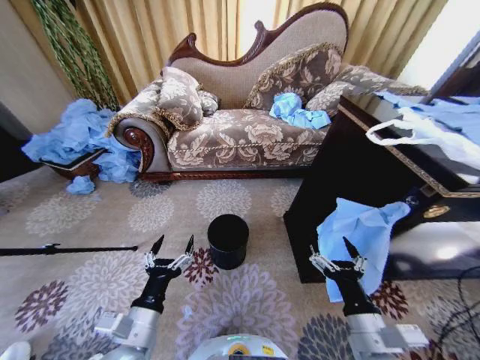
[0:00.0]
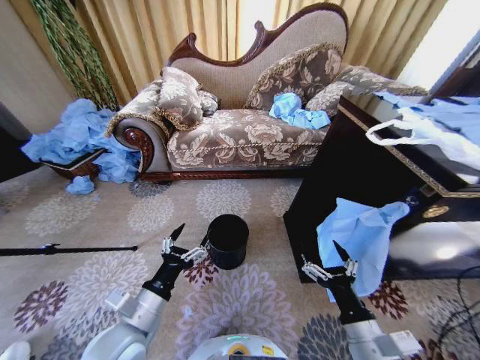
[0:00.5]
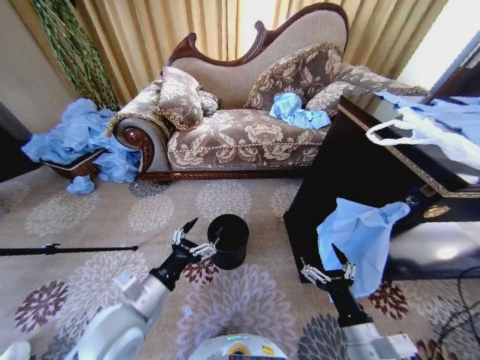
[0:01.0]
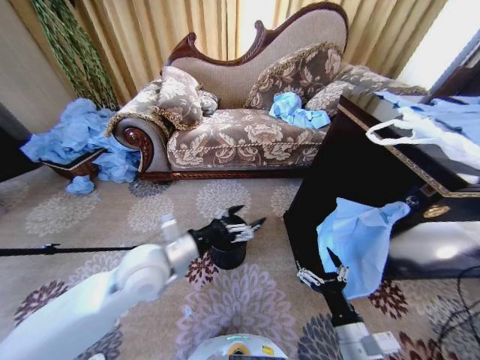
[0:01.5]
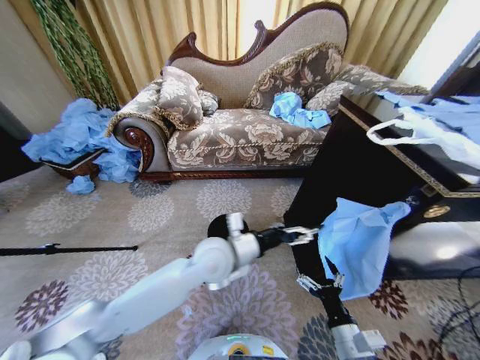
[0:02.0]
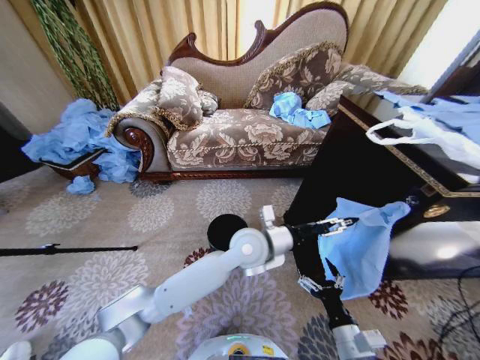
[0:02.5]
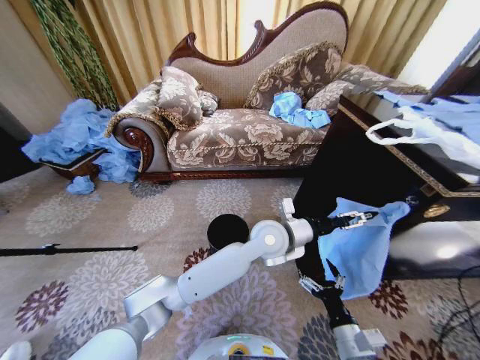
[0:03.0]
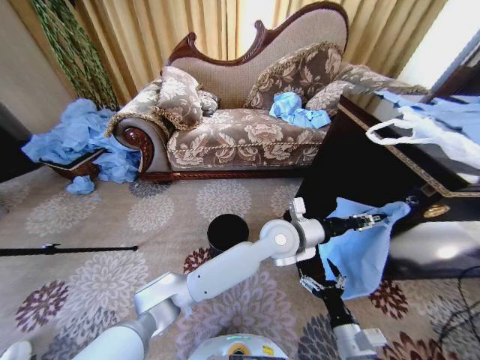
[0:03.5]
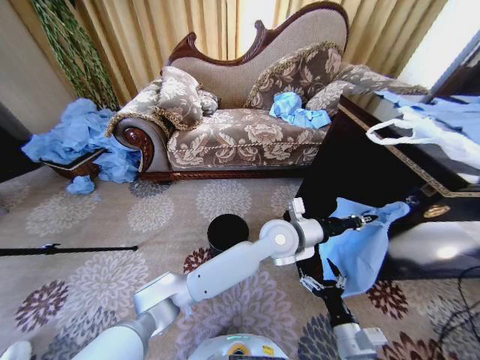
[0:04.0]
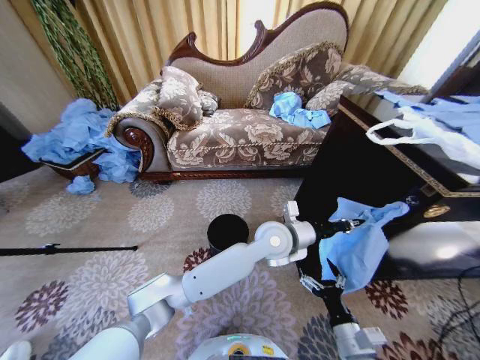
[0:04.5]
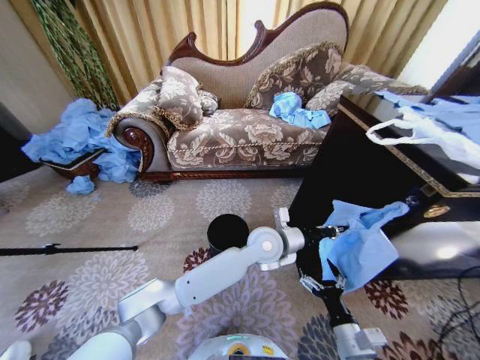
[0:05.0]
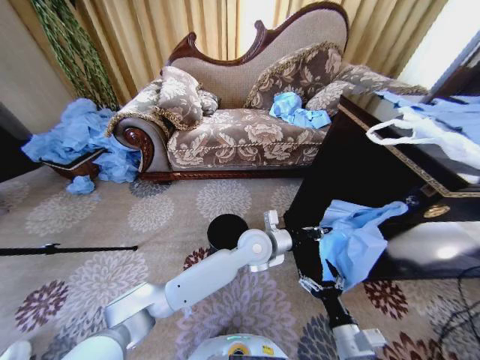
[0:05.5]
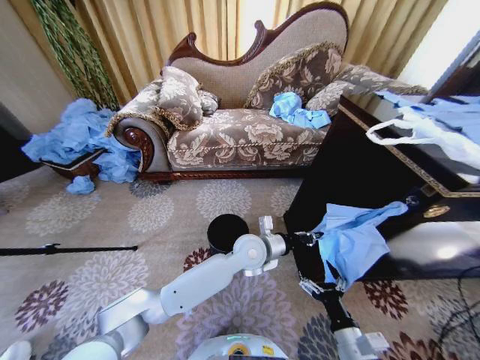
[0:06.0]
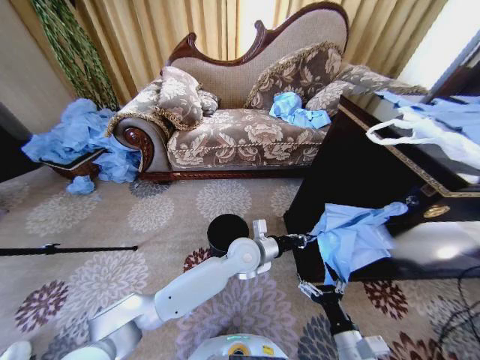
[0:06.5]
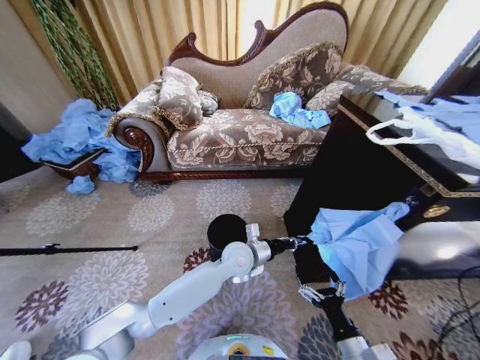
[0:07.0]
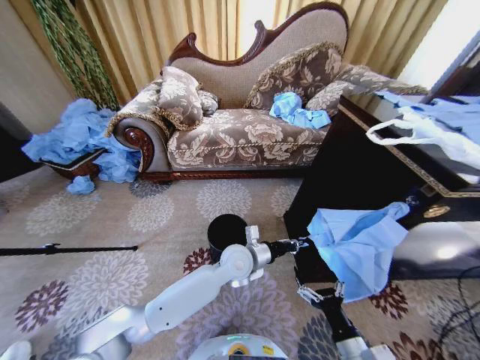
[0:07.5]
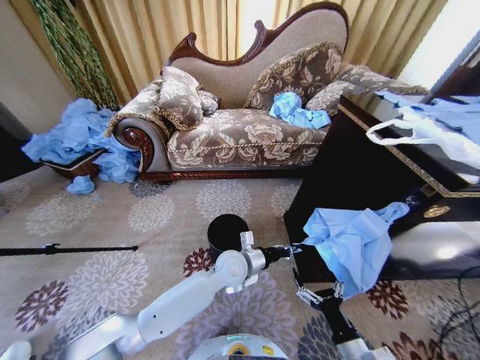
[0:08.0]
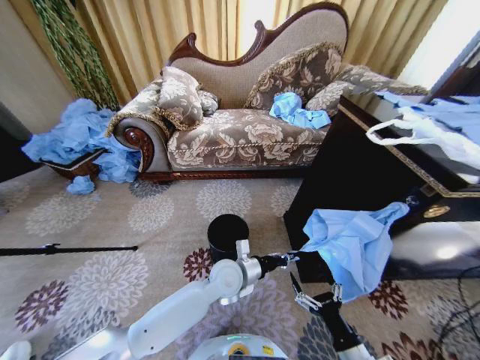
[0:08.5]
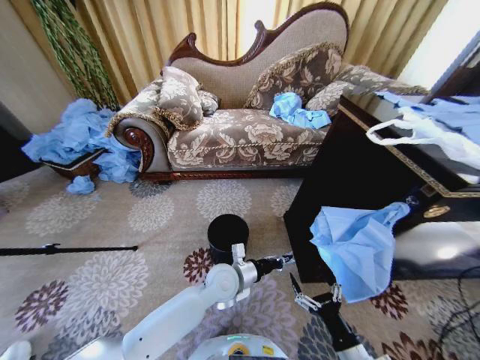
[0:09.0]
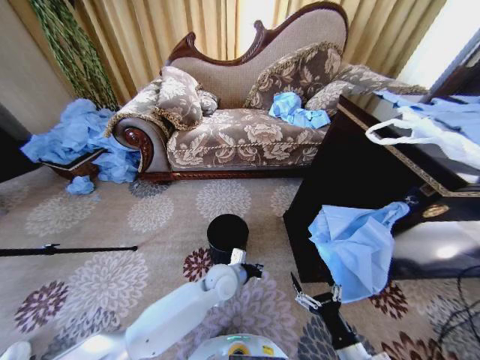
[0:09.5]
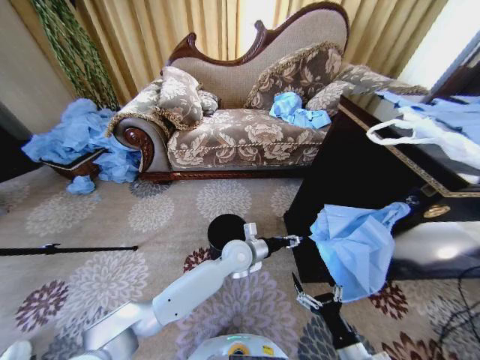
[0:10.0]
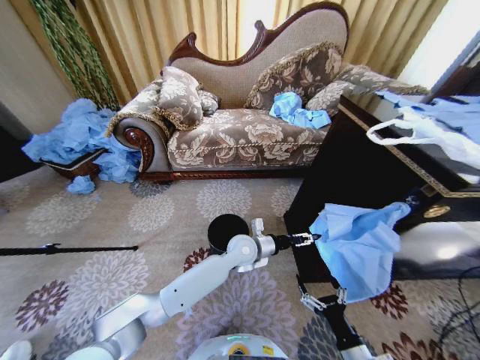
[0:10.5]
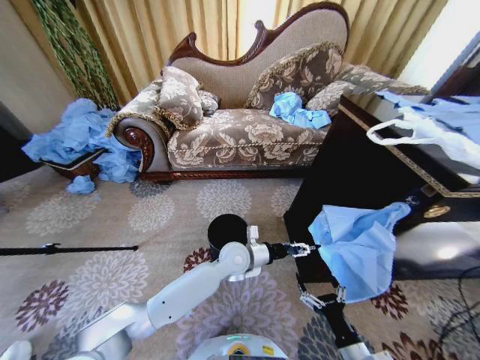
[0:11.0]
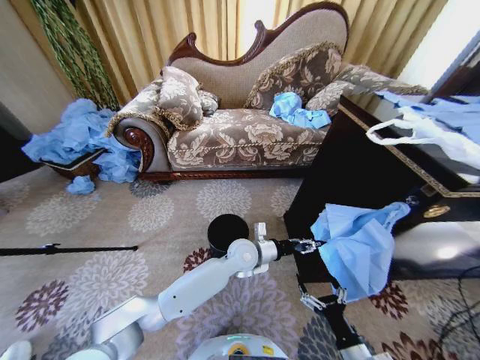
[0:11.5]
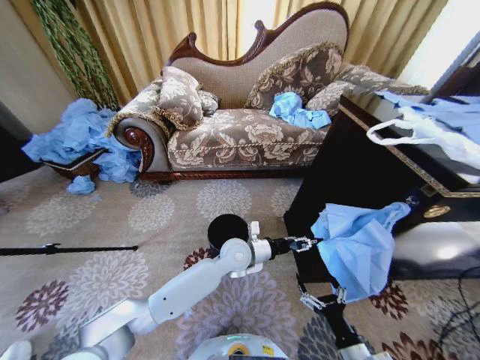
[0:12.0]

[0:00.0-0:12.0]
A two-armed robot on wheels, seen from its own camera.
Task of the whole recording: Place a garbage bag over the trash bin.
0:02.0 to 0:04.0: The left gripper heads to the right, covering some 15 cm, and closes its fingers.
0:04.0 to 0:06.0: The left gripper travels downward and to the left by approximately 10 cm.
0:06.0 to 0:08.0: The left gripper travels to the left by roughly 5 cm.
0:08.0 to 0:10.0: The left gripper opens its fingers.
0:10.0 to 0:12.0: The grippers make only small movements.

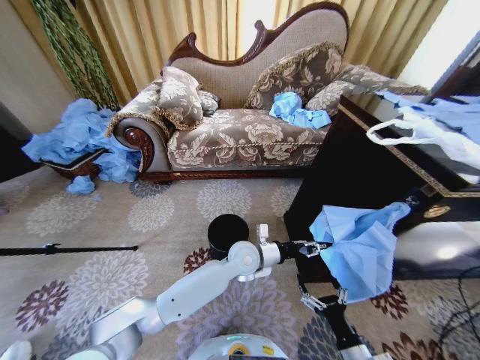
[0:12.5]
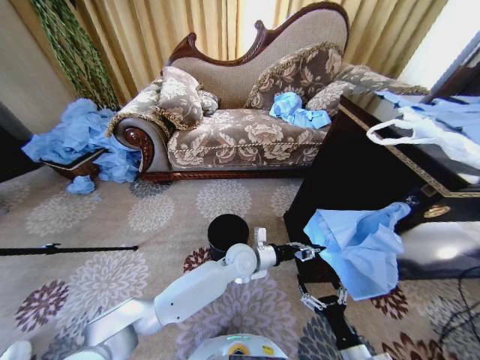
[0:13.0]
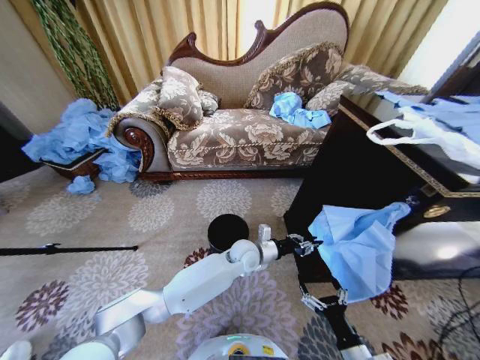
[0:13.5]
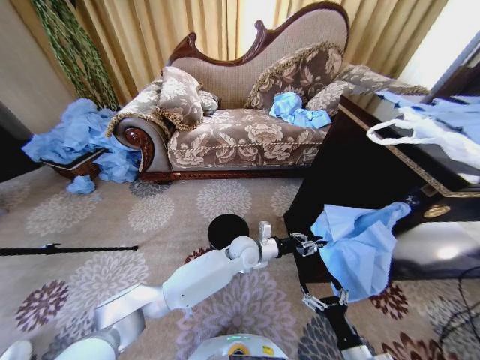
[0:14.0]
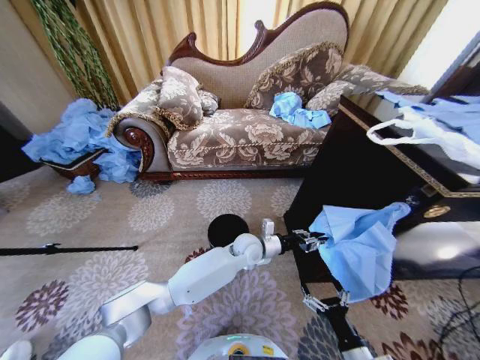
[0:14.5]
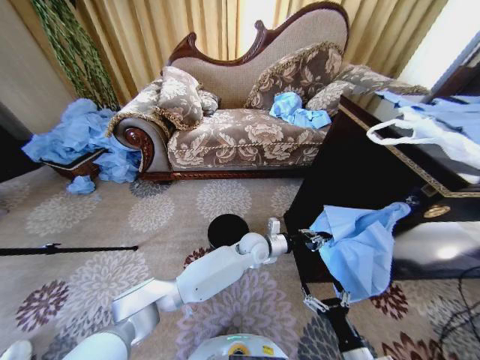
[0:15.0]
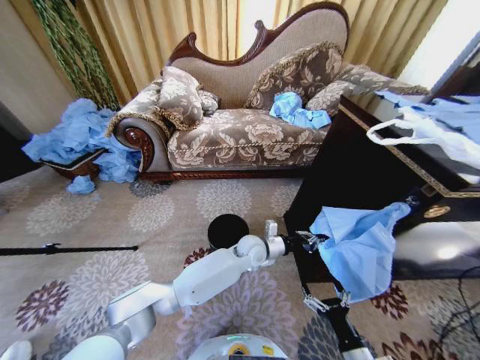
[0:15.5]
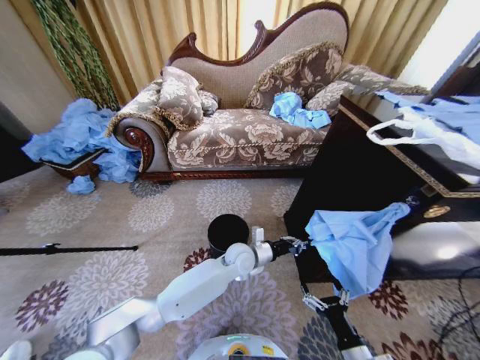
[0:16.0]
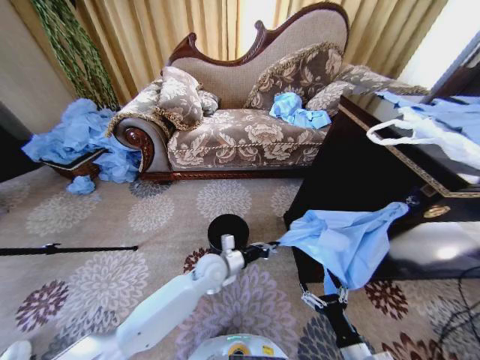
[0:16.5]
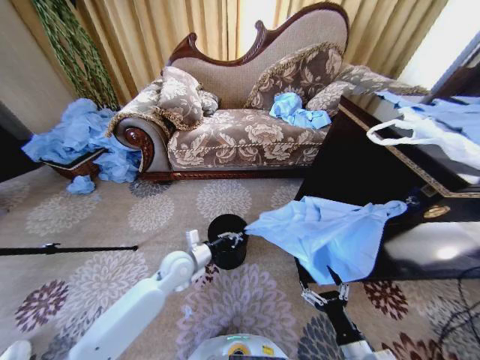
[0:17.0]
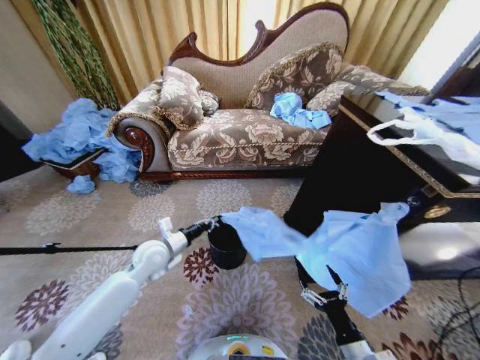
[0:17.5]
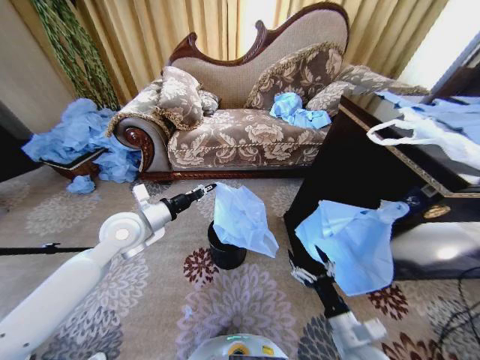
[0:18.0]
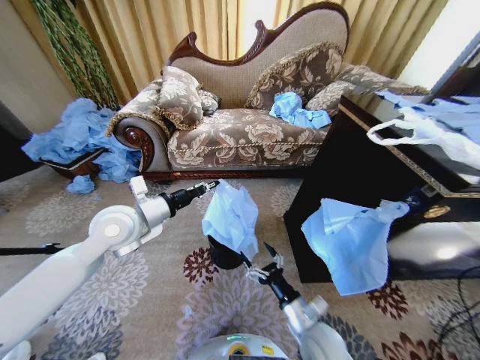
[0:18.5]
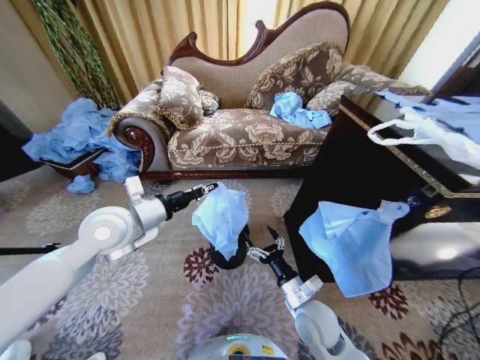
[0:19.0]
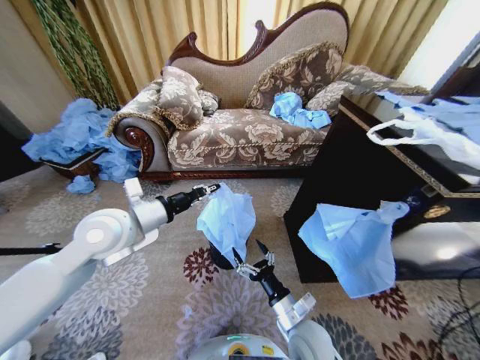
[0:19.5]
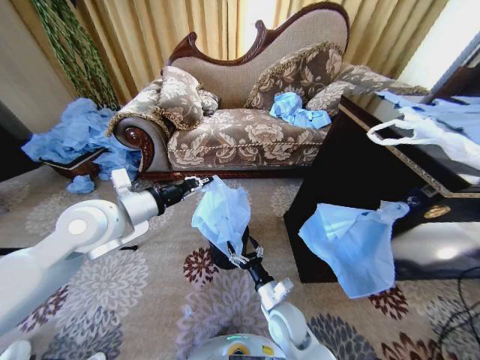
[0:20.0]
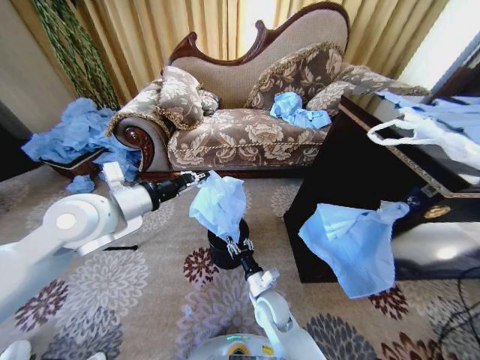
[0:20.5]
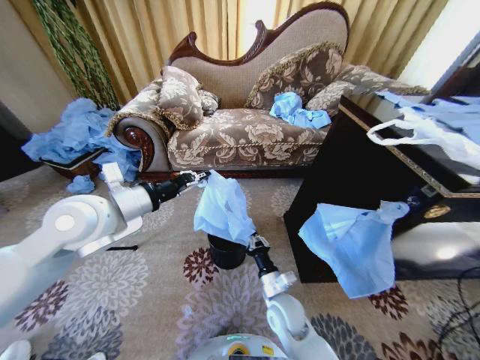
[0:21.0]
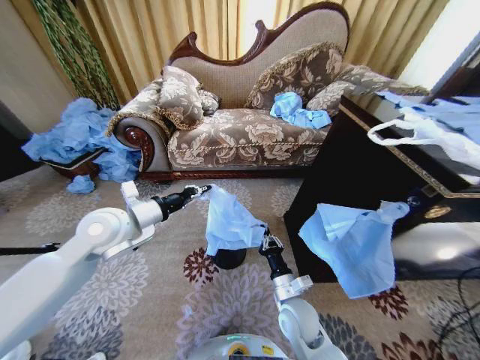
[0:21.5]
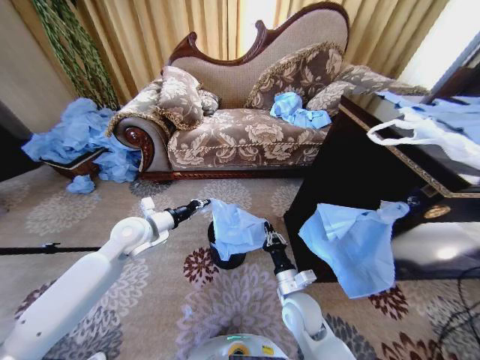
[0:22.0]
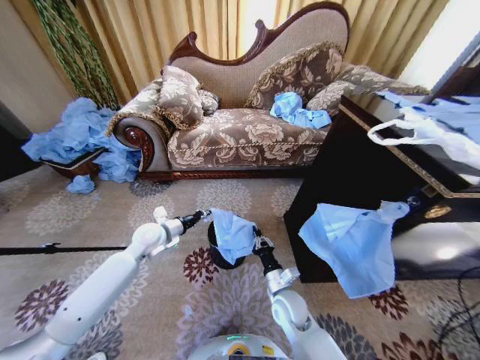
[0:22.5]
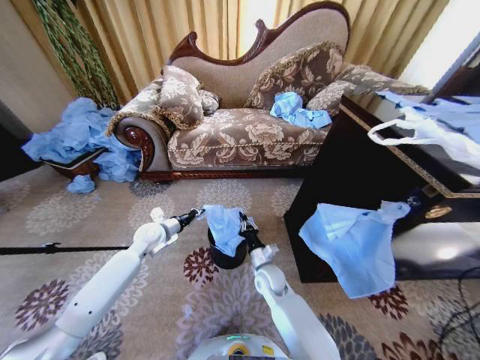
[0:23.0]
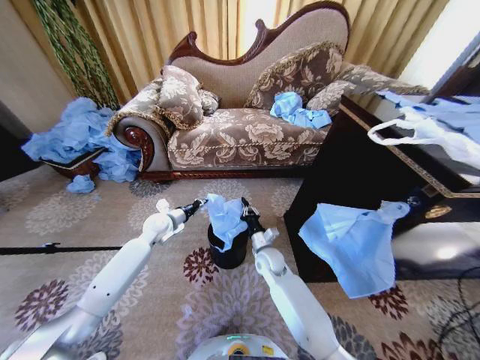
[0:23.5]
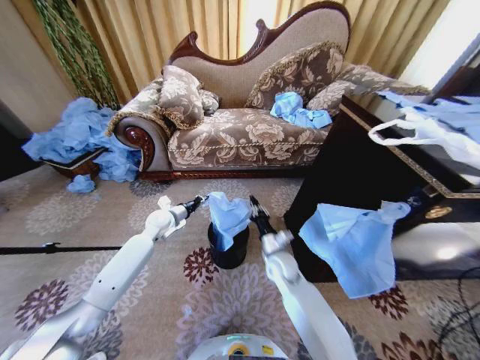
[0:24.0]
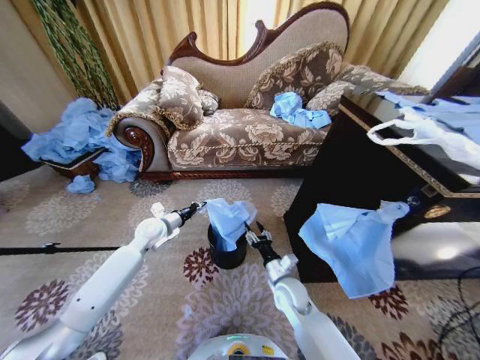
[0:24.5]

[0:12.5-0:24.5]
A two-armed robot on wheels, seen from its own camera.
Task of the whole recording: Place a garbage bag over the trash bin.
0:14.5 to 0:16.5: The left gripper moves to the left and backward, approximately 15 cm.
0:16.5 to 0:18.5: The right gripper travels to the left and forward by about 15 cm; the left gripper heads upward and to the left, covering some 30 cm.
0:18.5 to 0:20.5: The left gripper is displaced upward by roughly 5 cm. Meanwhile the right gripper heads to the left, forward and downward, covering roughly 15 cm, and closes.
0:20.5 to 0:22.5: The left gripper travels downward and forward by about 25 cm, while the right gripper is displaced to the right by about 5 cm, and closes up.
0:22.5 to 0:24.5: The right gripper reaches about 15 cm forward, then returns, and opens.

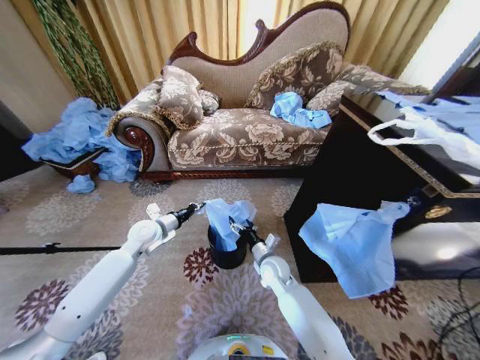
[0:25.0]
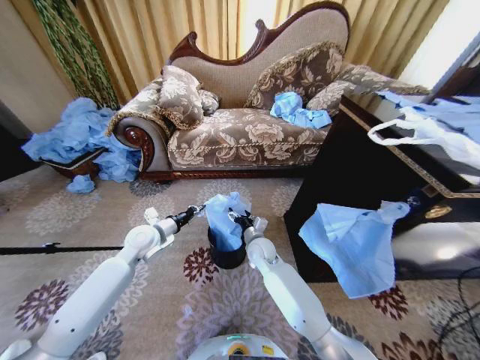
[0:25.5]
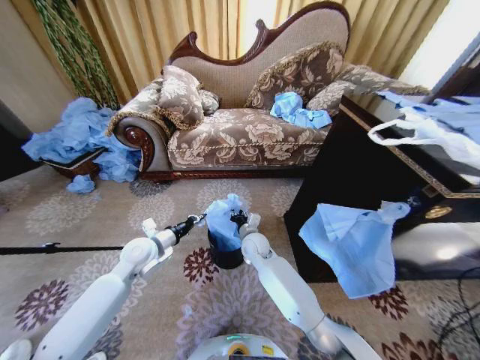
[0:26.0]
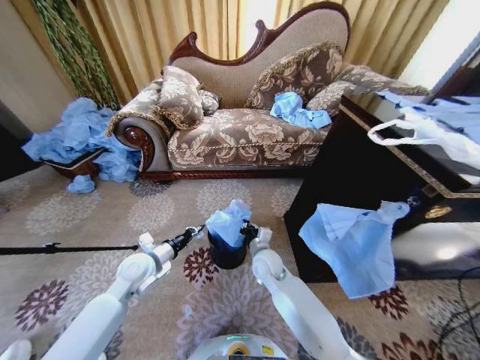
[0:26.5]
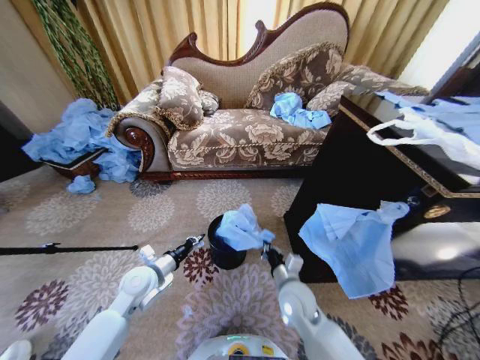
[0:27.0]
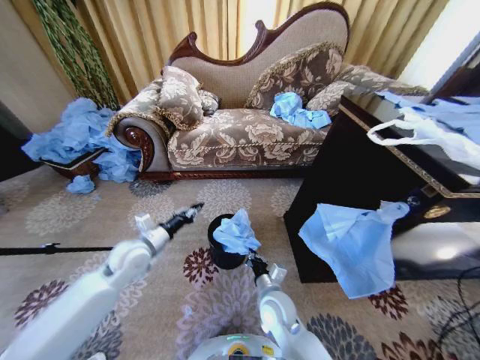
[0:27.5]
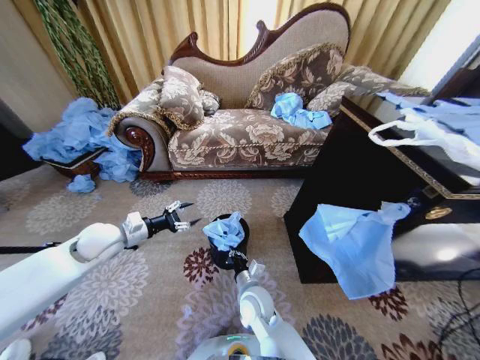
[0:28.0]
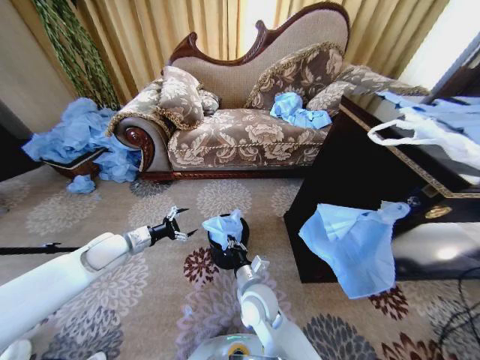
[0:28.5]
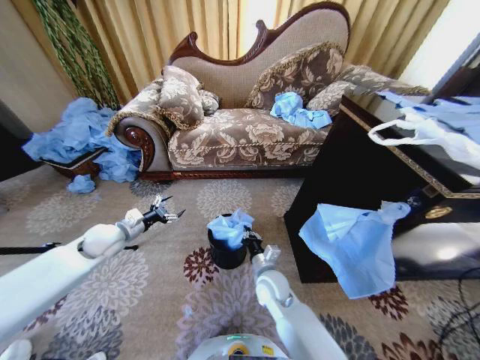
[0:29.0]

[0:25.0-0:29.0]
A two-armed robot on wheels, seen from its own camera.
Task of the whole recording: Place a garbage bag over the trash bin.
0:25.0 to 0:27.0: The right gripper travels backward by some 10 cm, and closes up. The left gripper shifts about 15 cm backward and downward.
0:27.0 to 0:29.0: The left gripper moves to the left, forward and upward, some 15 cm, and opens its fingers; the right gripper goes approximately 5 cm to the left.
